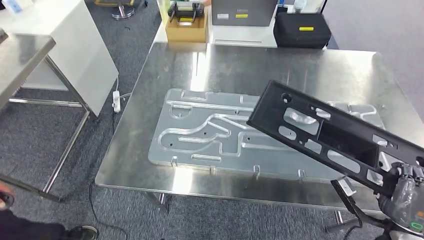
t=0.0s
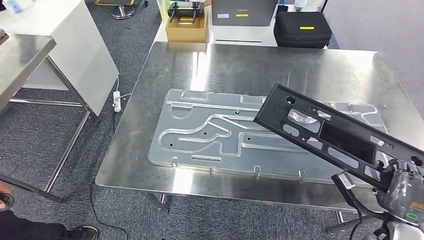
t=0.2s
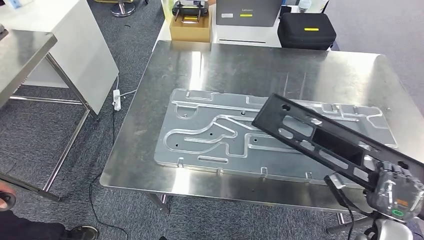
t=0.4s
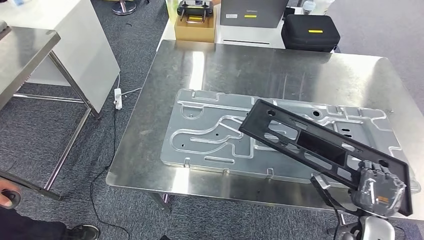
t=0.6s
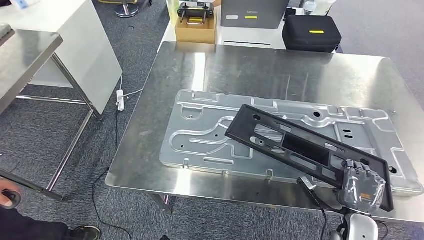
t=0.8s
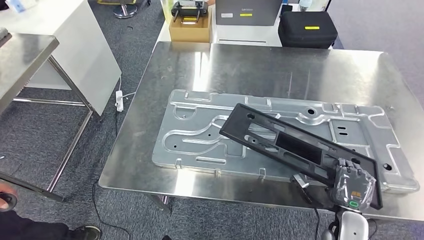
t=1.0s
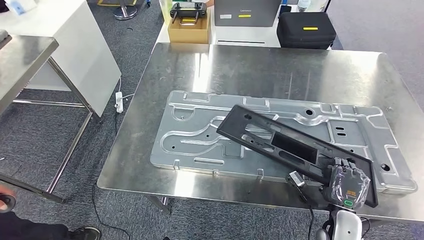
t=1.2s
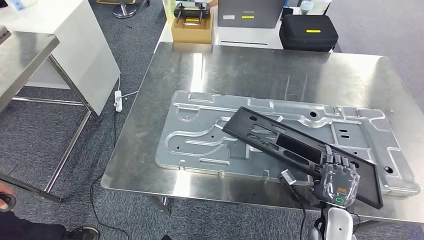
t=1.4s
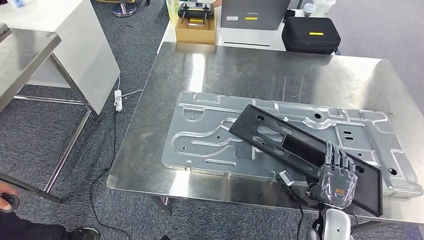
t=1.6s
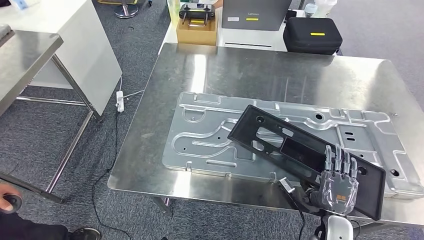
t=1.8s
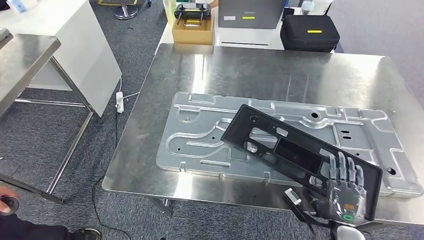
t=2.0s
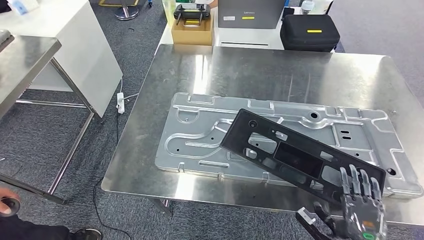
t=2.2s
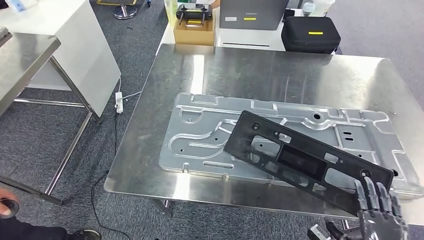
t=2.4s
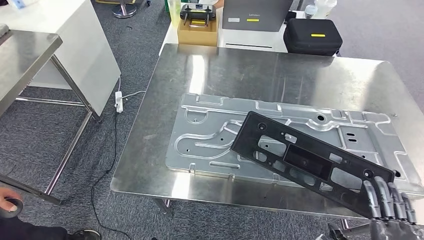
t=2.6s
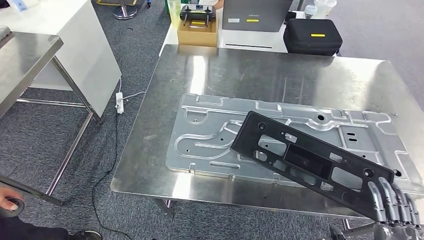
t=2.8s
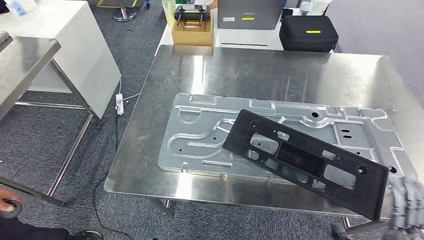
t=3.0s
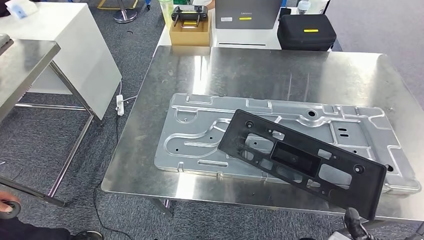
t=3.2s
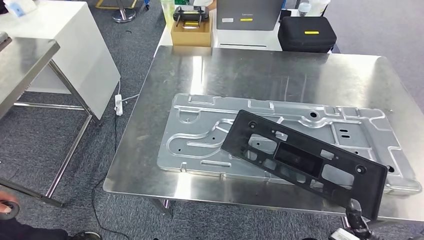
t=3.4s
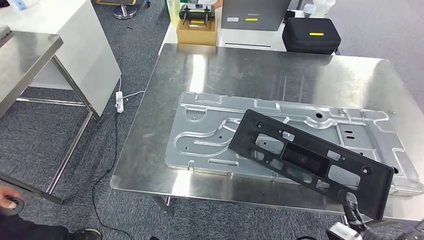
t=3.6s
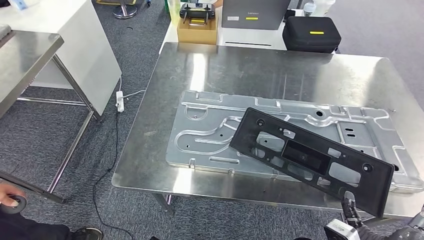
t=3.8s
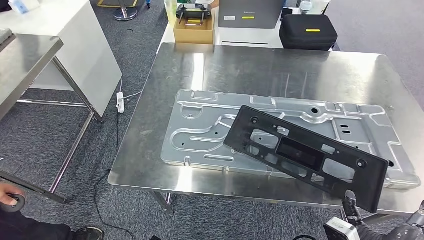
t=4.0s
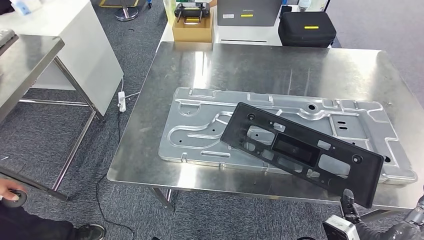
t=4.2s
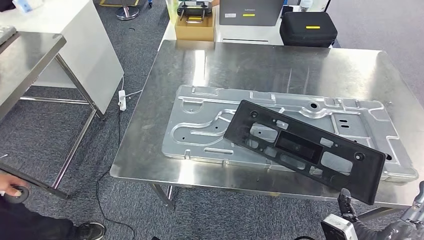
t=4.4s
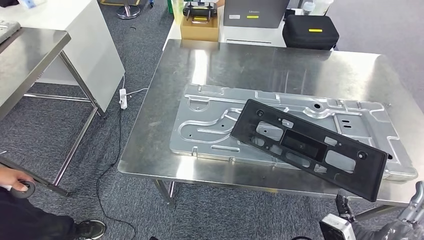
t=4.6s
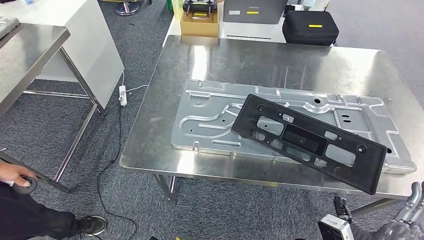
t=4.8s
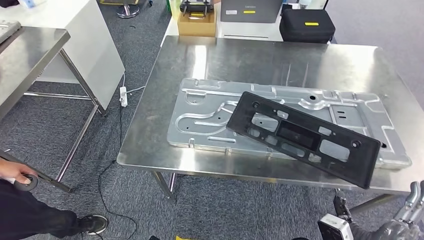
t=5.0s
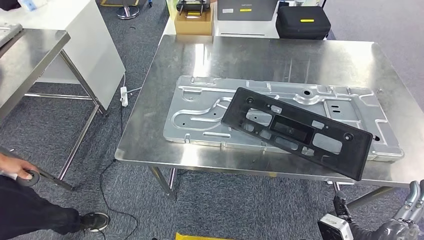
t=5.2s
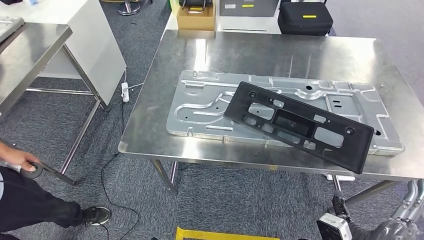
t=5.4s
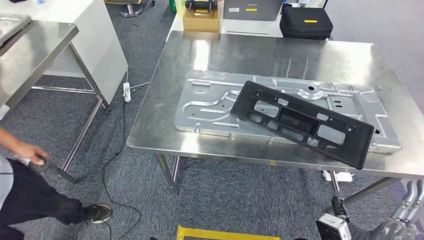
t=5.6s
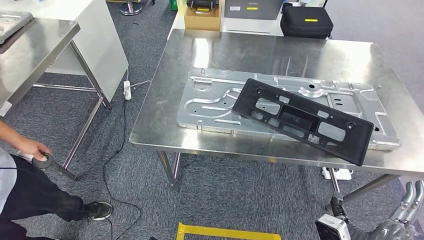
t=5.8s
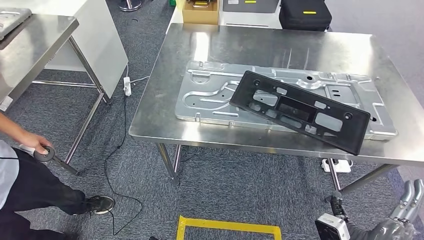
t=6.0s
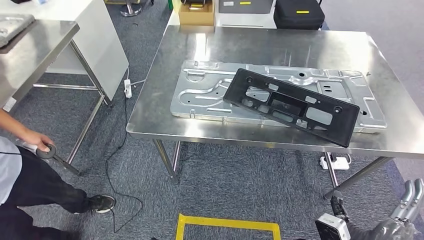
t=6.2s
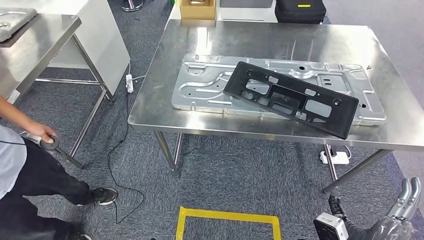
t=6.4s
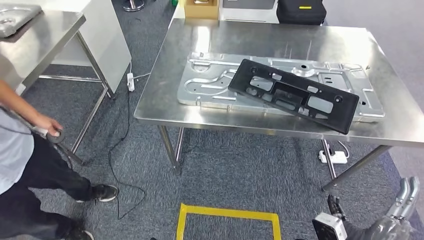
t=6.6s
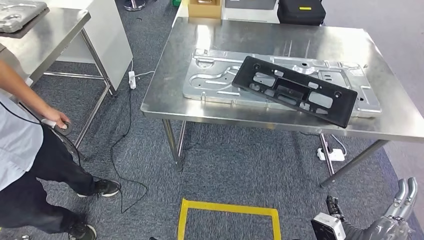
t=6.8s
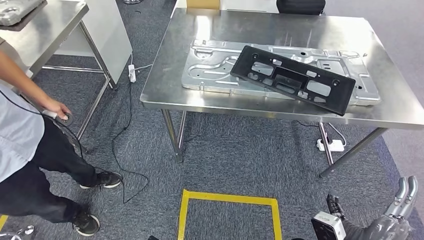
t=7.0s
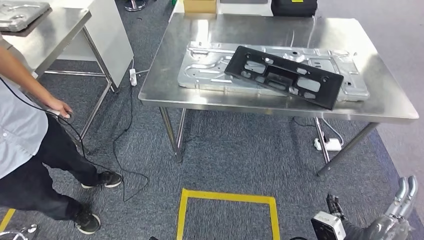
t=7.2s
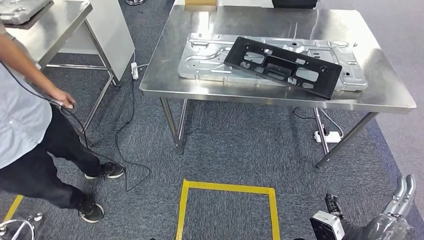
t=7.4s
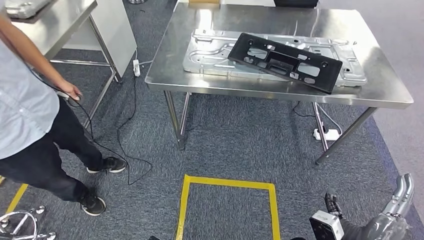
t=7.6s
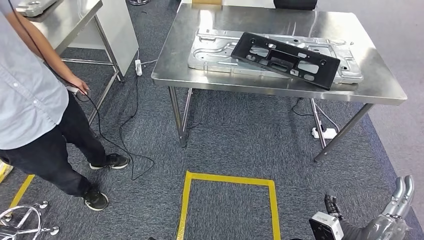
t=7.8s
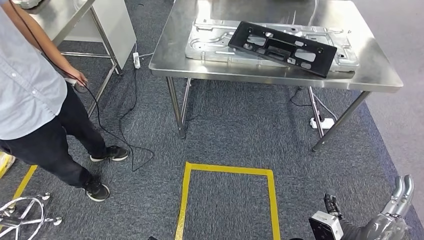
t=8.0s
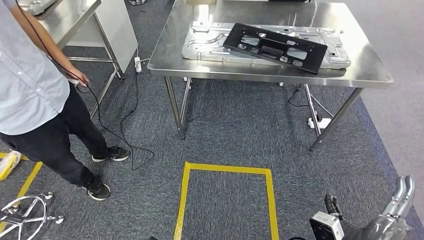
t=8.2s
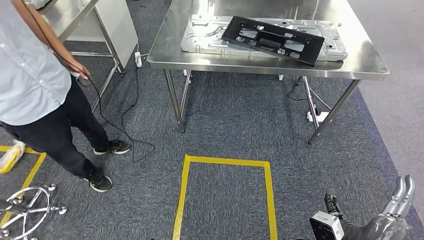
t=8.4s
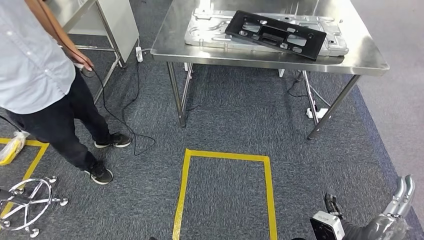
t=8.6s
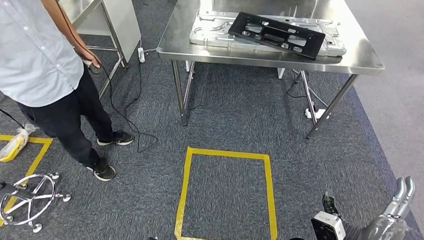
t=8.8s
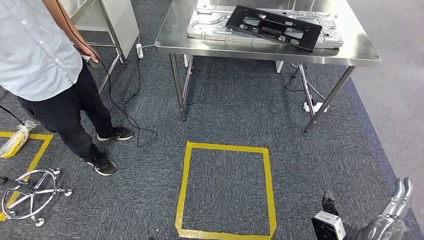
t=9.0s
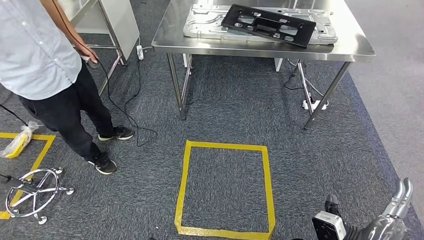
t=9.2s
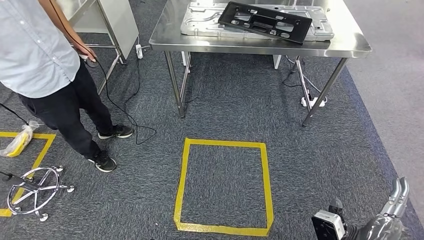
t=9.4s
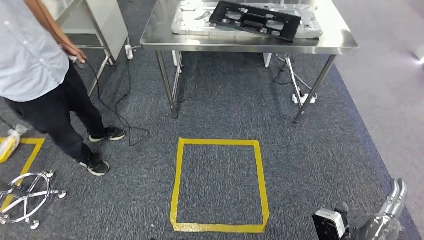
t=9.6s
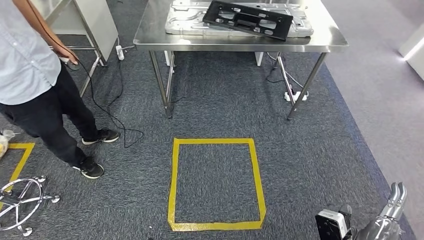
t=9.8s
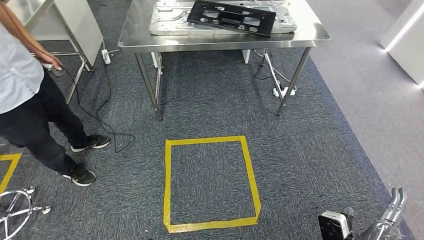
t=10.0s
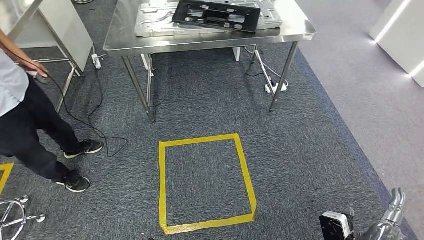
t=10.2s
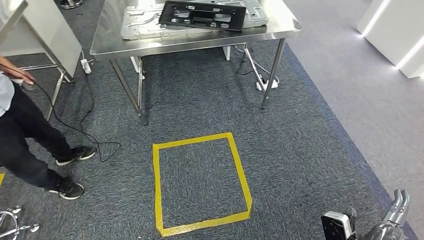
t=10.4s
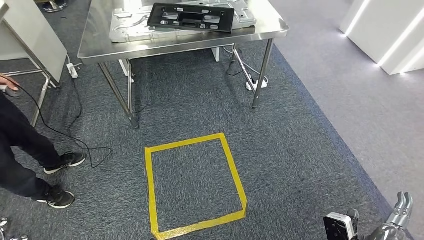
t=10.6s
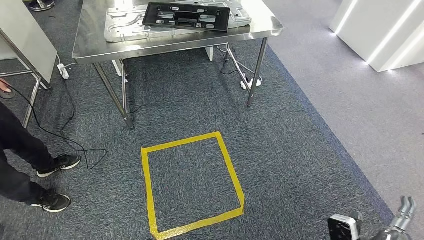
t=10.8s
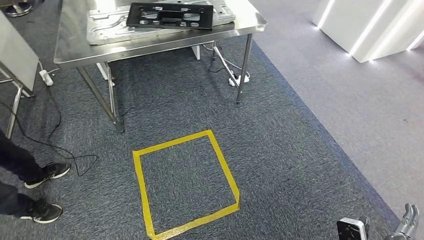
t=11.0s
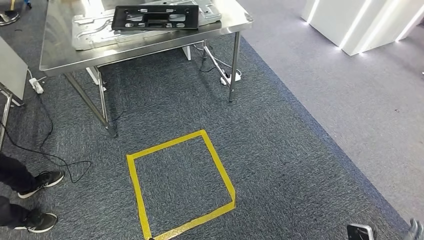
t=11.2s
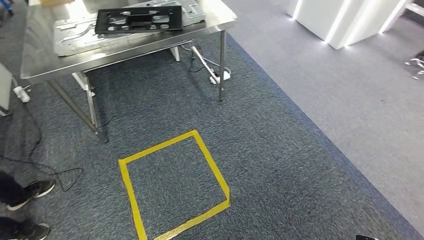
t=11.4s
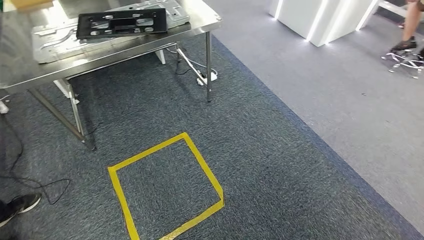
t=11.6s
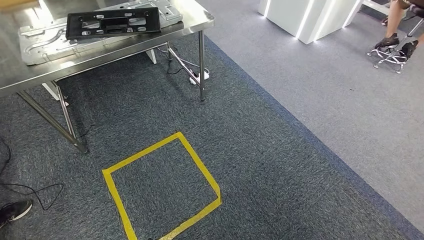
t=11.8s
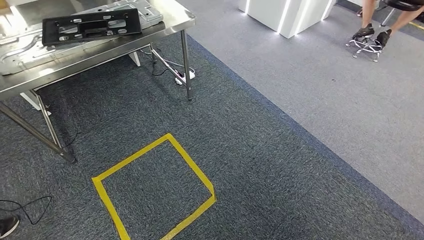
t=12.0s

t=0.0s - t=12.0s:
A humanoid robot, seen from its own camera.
Step, t=0.0s - t=8.2s: Insert the large material into the corresponding slot on the workbench.

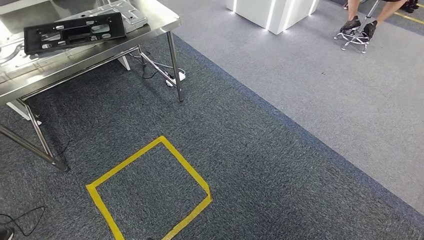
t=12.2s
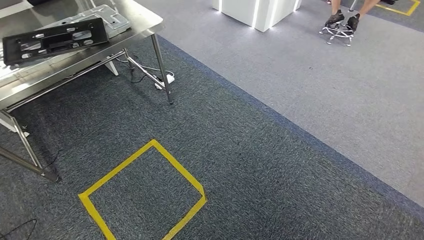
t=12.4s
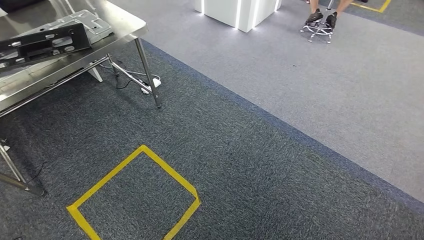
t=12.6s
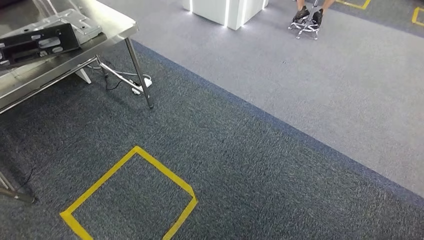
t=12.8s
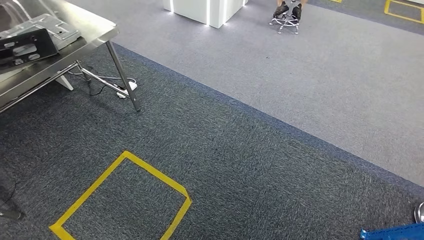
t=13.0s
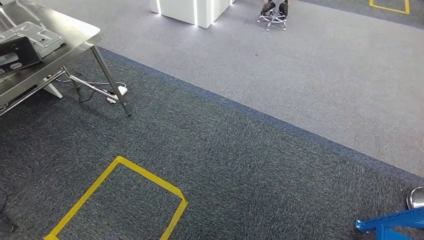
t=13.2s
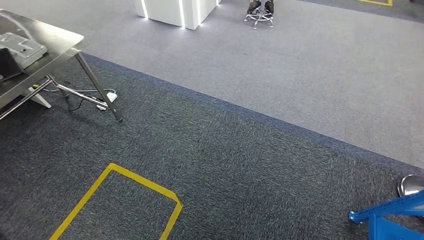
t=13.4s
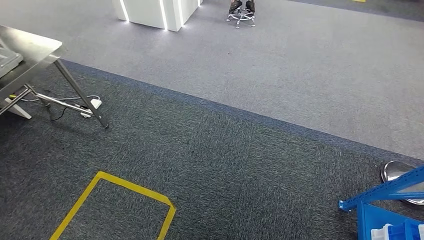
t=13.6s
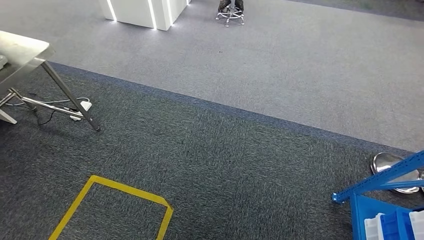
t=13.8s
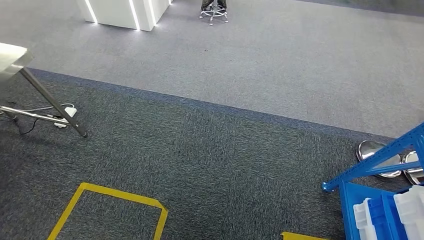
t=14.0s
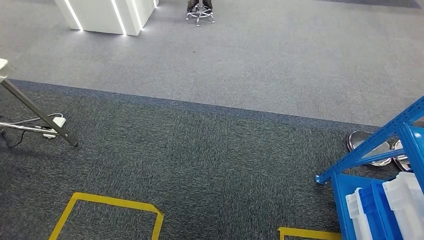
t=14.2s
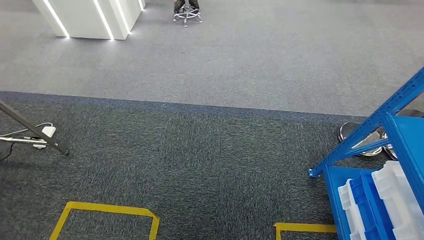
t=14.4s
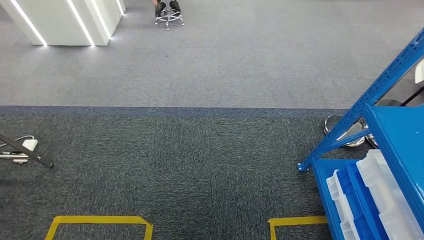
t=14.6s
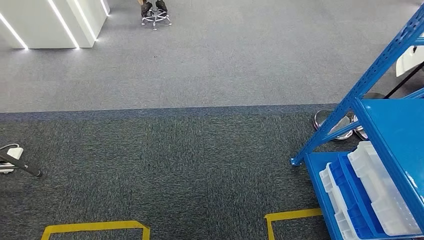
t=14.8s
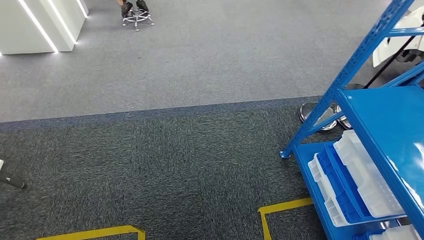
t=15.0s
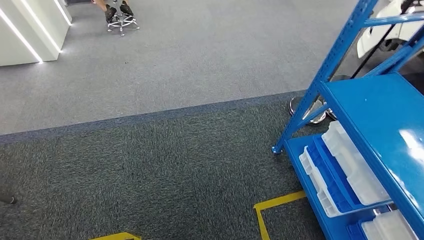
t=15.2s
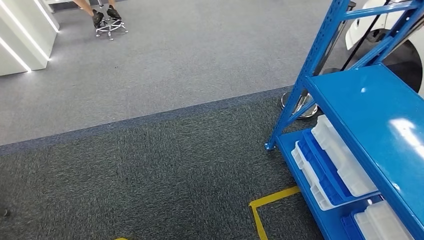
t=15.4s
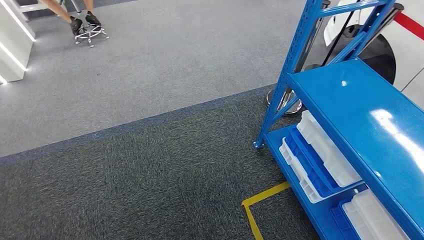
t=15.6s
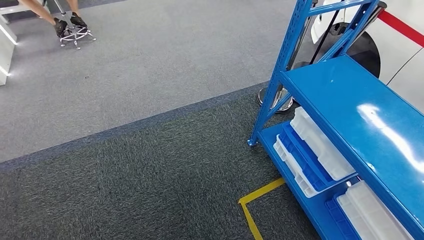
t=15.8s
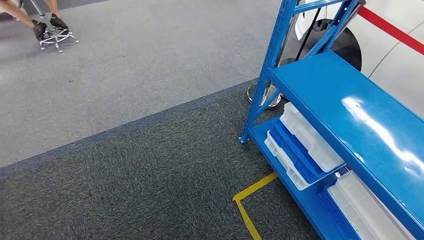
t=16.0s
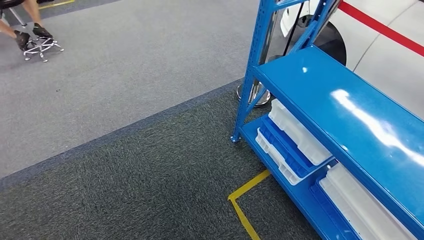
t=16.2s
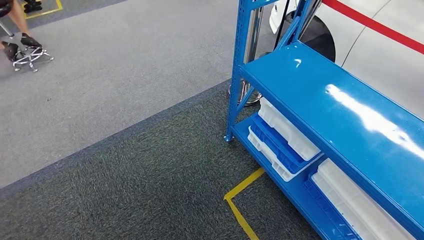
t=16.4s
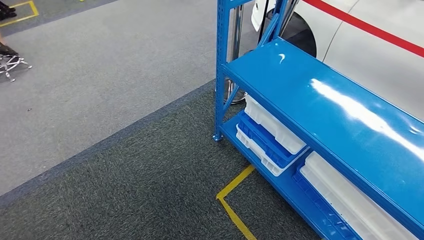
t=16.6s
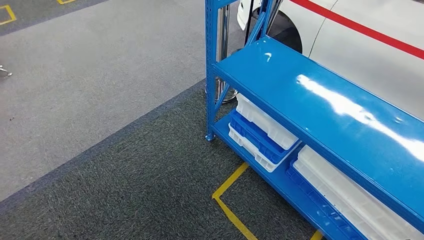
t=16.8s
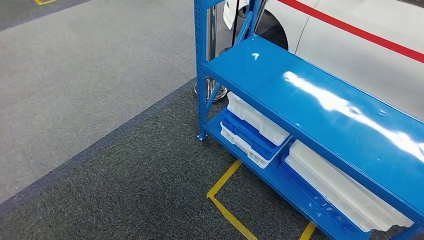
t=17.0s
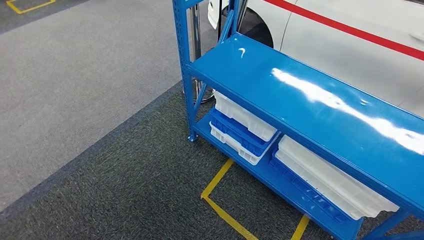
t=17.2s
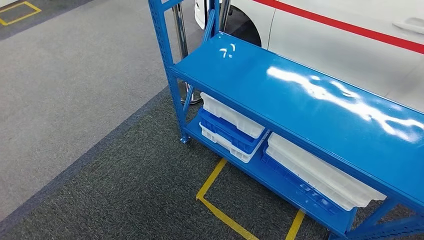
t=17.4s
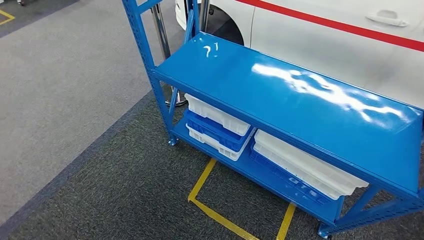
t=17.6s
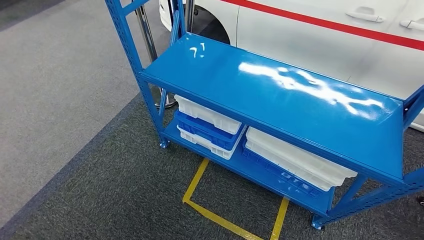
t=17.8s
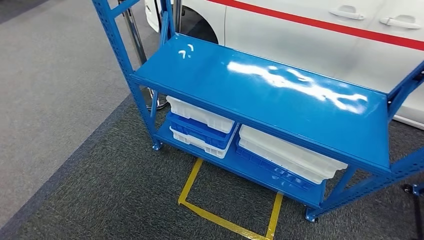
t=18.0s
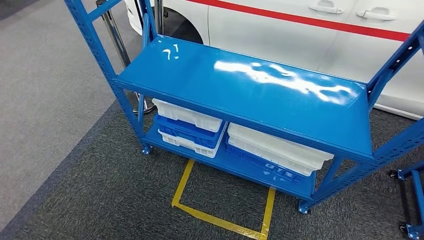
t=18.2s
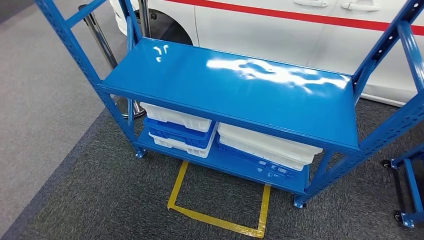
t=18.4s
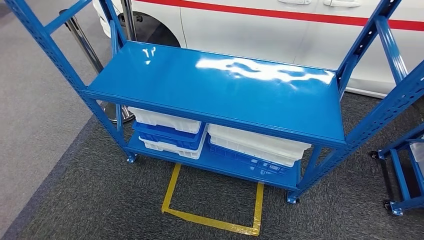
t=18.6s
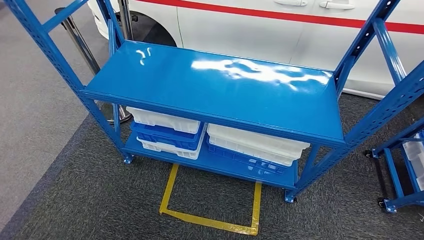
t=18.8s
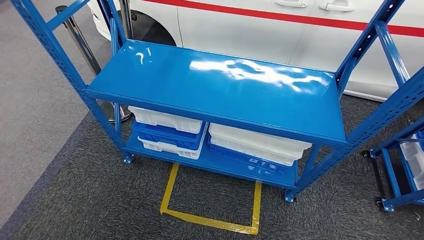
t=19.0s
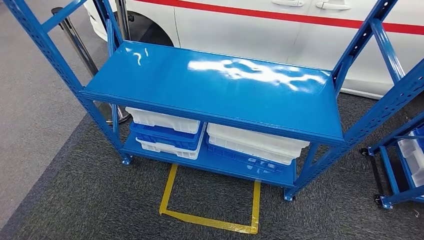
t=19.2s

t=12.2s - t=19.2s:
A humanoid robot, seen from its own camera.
Step, t=12.2s - t=19.2s: Move to the initial position of the shelf.
